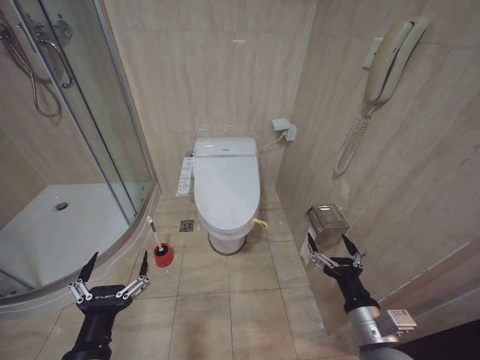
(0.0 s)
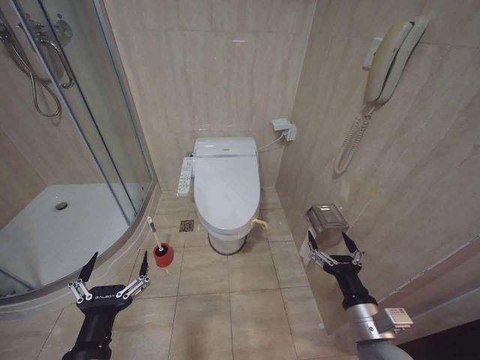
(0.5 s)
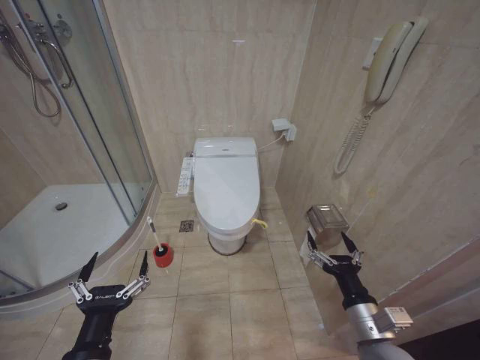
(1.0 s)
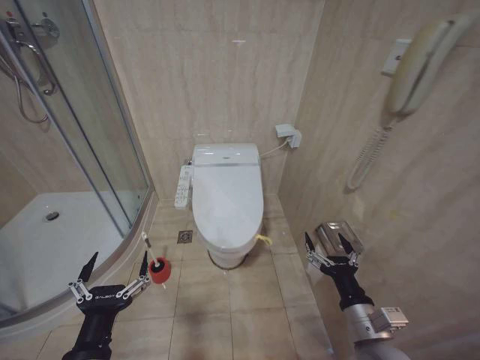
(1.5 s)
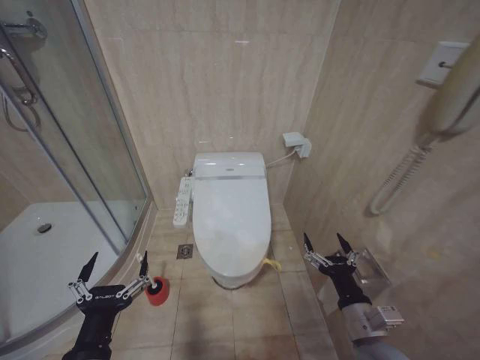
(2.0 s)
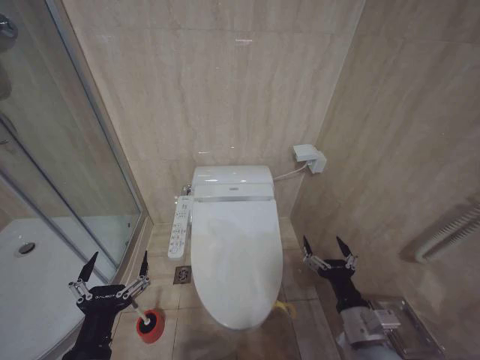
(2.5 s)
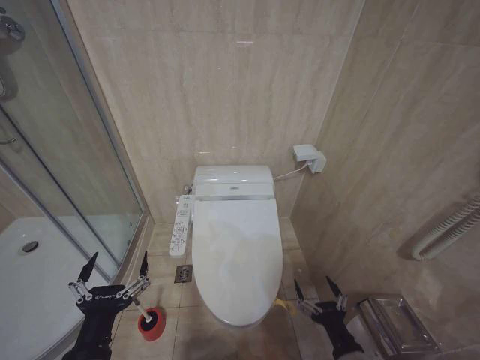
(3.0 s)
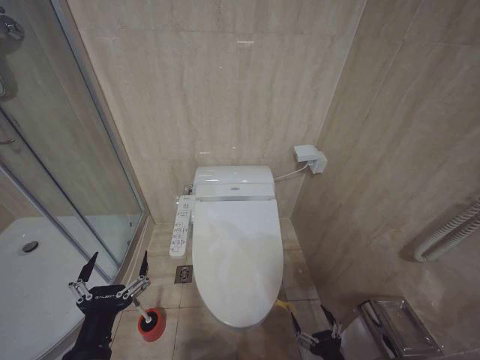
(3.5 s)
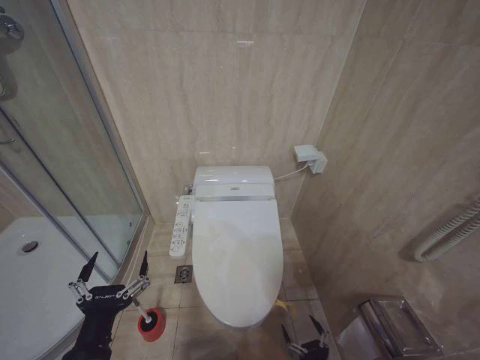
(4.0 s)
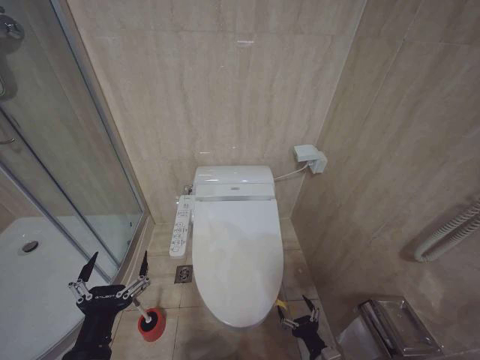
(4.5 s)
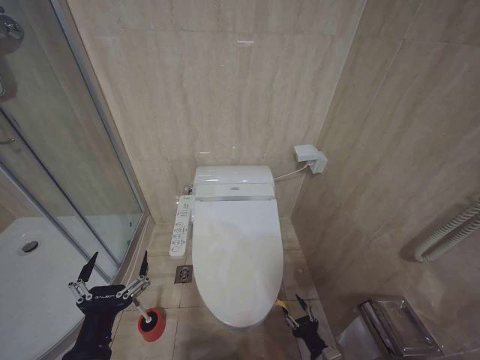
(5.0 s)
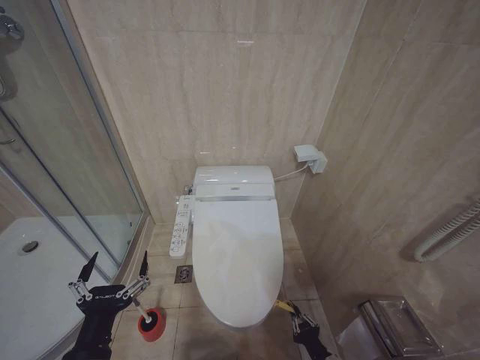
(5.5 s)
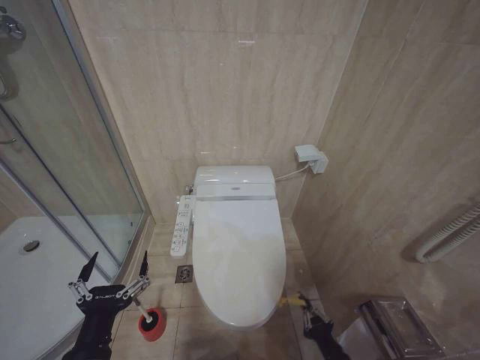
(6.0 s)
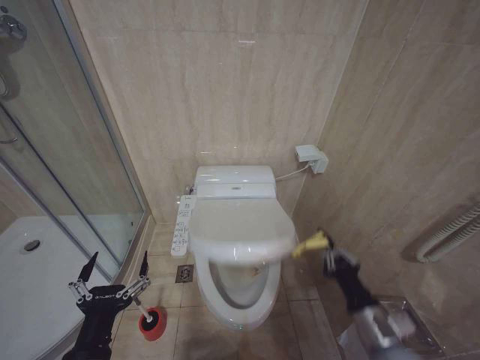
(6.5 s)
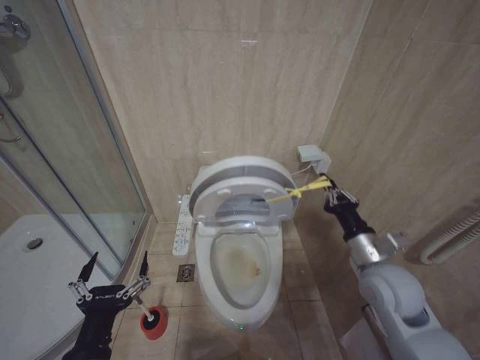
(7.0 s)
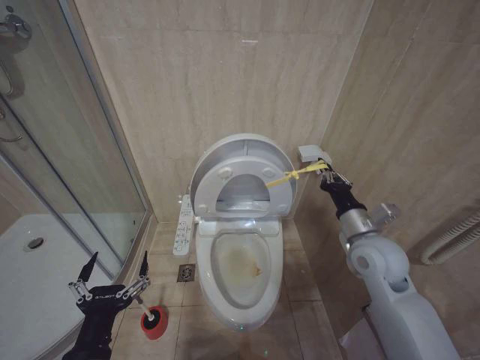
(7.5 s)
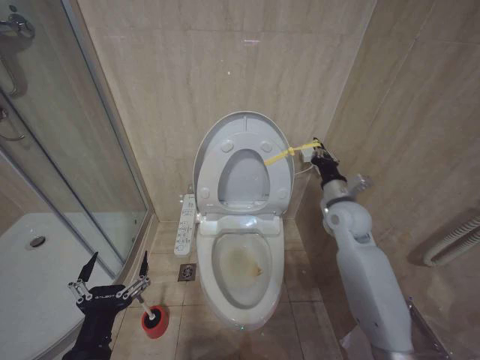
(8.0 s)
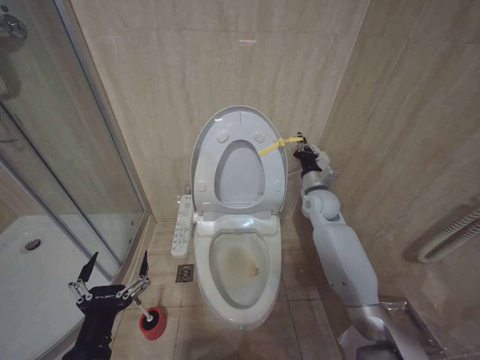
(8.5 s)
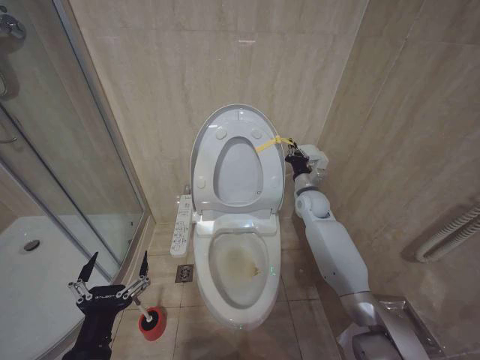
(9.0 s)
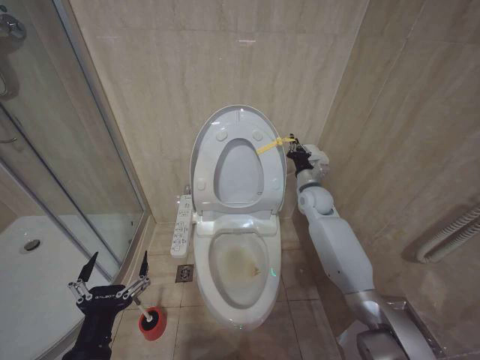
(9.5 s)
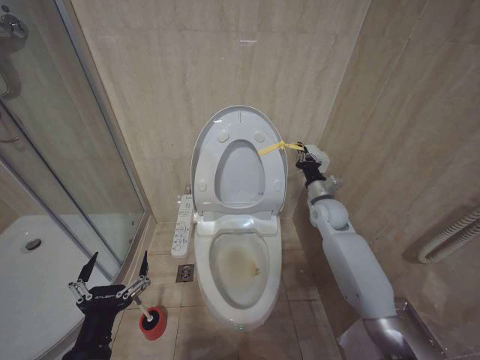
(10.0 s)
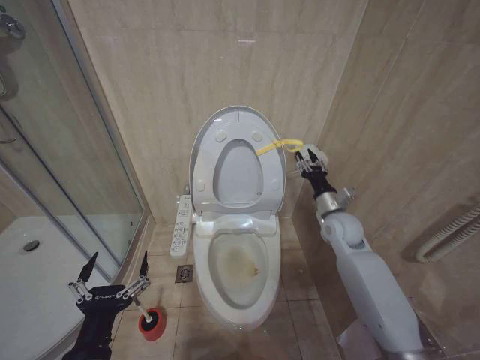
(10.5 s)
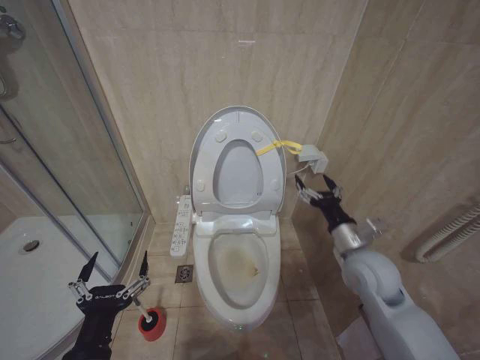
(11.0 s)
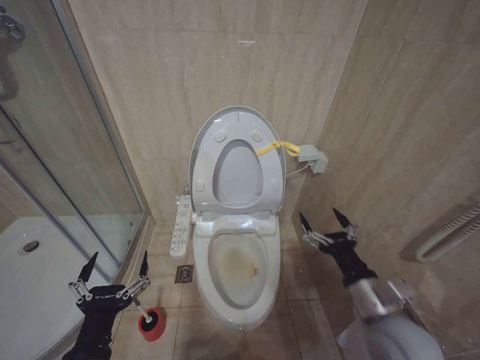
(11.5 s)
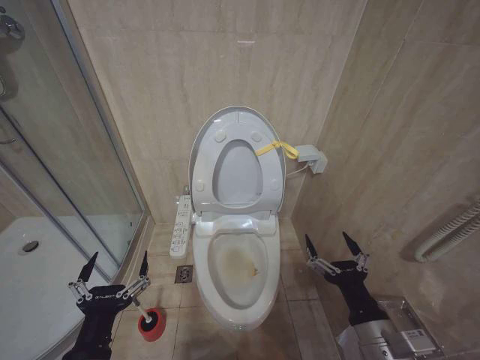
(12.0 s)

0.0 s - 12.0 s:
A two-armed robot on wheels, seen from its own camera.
Task of the whole recording: Open the toilet lid, clean the toilet bowl with a toilet brush, close the toilet lid, and flush.
2.0 s - 4.0 s: The right gripper shifts roughly 20 cm downward and backward.
4.0 s - 6.0 s: The right gripper closes its fingers.
6.0 s - 8.0 s: The right gripper goes roughly 40 cm upward and forward.
8.0 s - 10.0 s: The right gripper shifts about 10 cm forward and downward.
10.0 s - 12.0 s: The right gripper goes some 35 cm backward, and opens up.

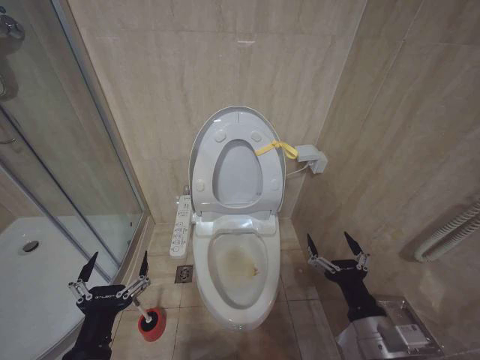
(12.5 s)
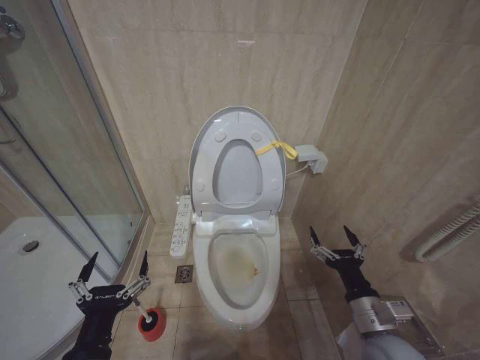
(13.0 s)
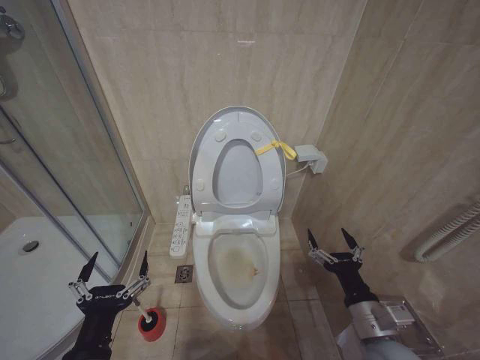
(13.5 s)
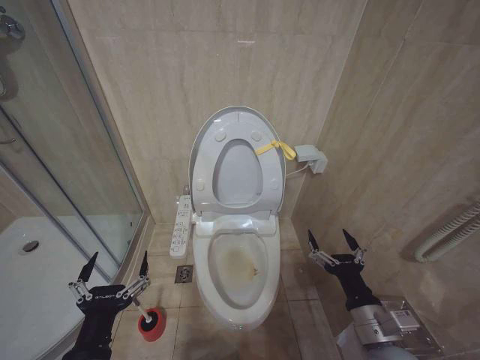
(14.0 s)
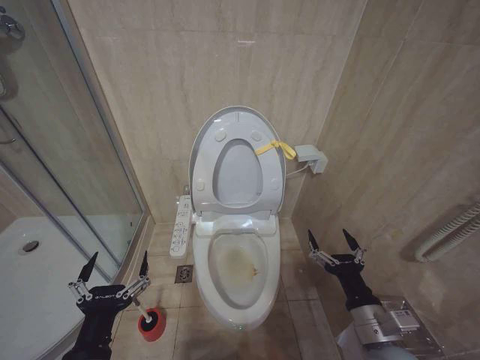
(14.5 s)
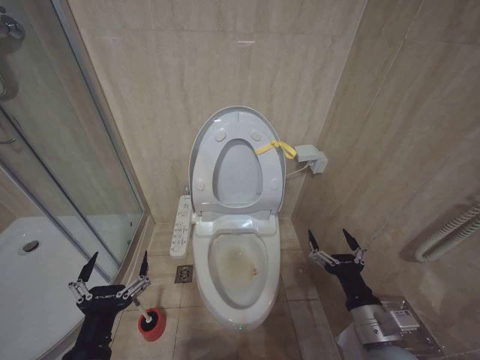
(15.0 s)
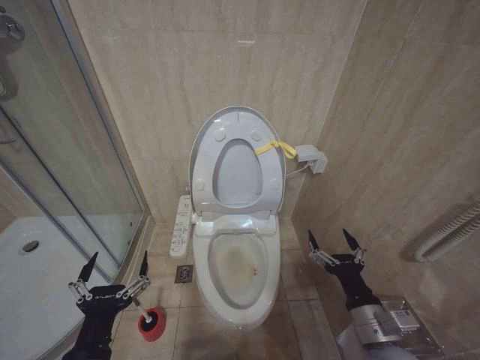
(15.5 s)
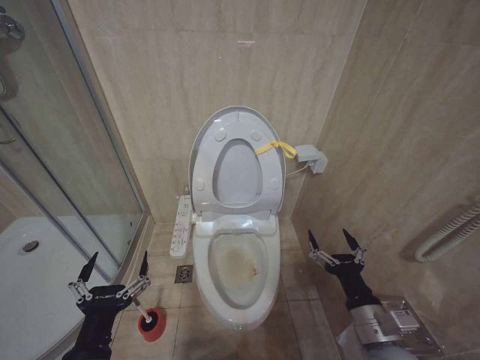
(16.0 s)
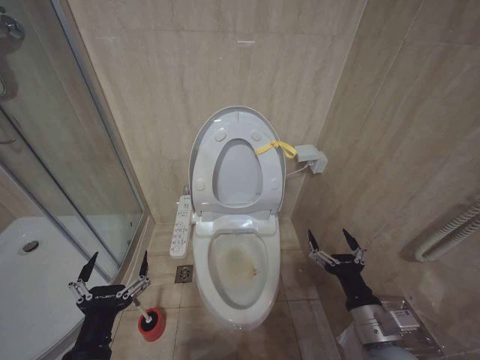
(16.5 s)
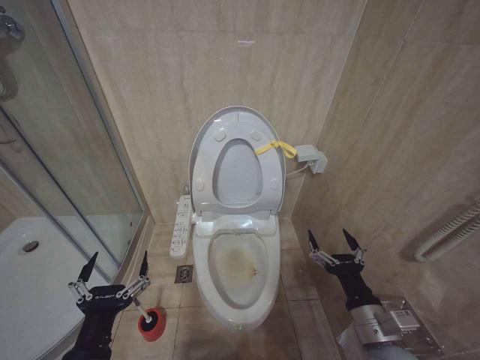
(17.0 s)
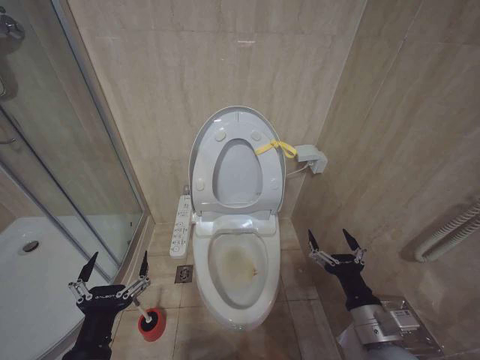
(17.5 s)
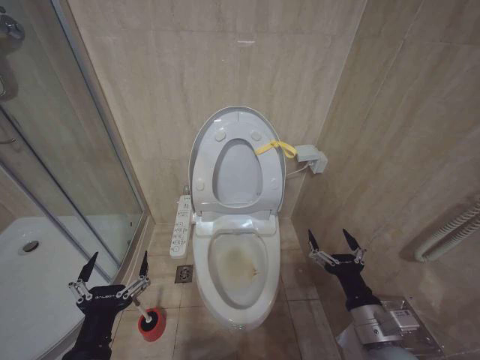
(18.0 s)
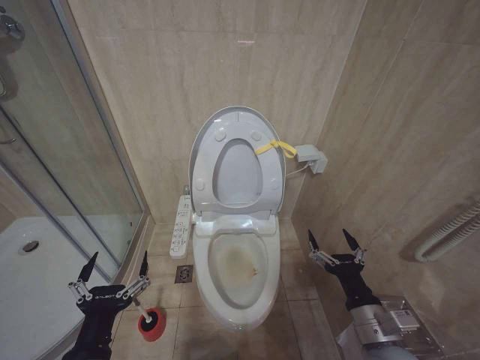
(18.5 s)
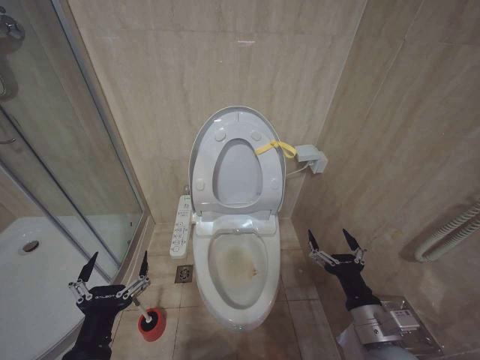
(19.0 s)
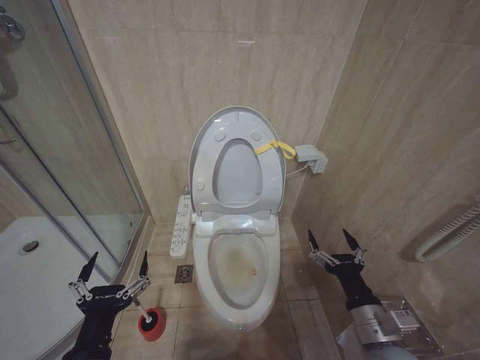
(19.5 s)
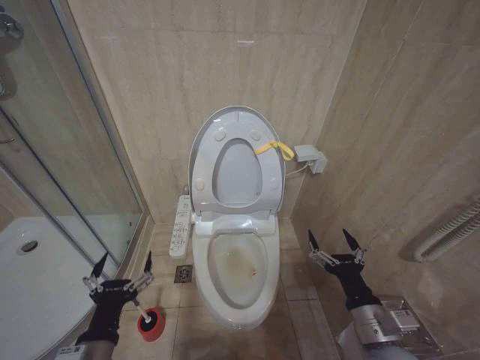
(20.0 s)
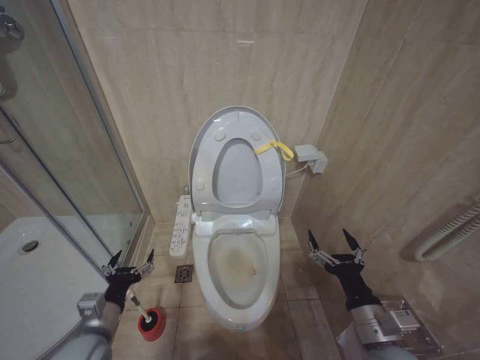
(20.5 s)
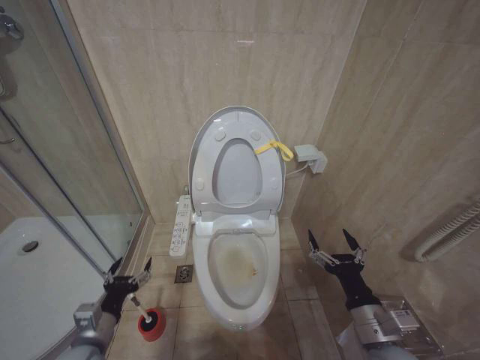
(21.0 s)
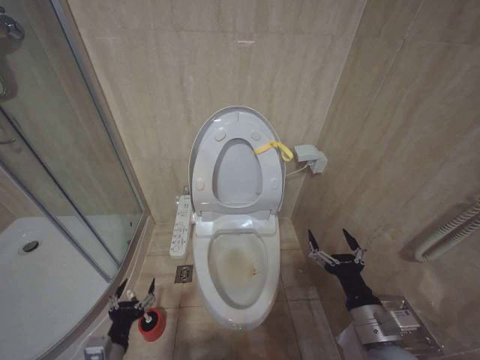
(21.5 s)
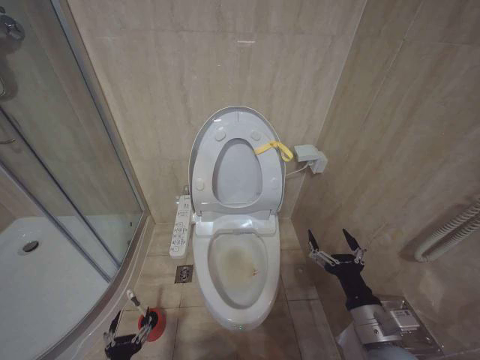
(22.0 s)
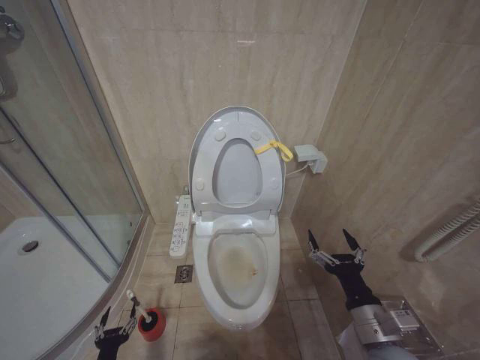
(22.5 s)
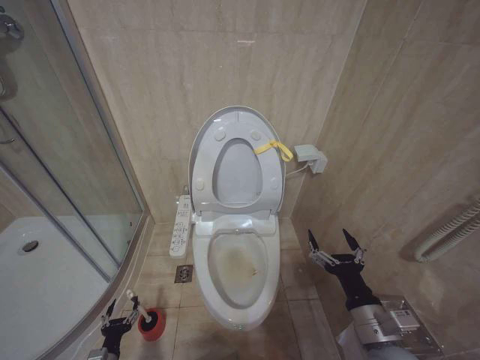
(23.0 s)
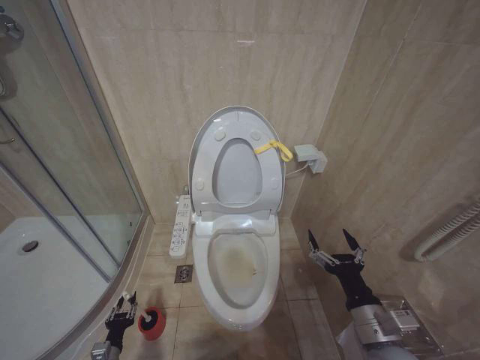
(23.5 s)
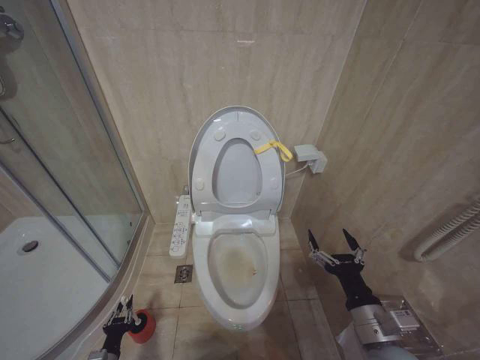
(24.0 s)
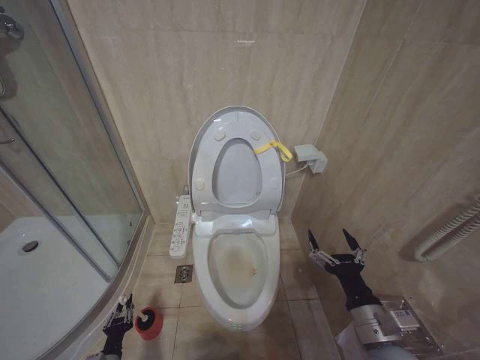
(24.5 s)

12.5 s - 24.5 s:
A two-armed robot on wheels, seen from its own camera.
Task of the whole recording: Open the toilet lid, clean the toilet bowl with a toilet brush, close the toilet lid, and flush.
12.5 s - 14.5 s: The grippers move only a little.
14.5 s - 18.5 s: Both grippers stay put.
18.5 s - 20.5 s: The left gripper travels forward, downward and to the left by about 15 cm.
20.5 s - 22.5 s: The left gripper goes approximately 20 cm downward.
22.5 s - 24.5 s: The left gripper shifts some 10 cm downward and forward, and closes up.

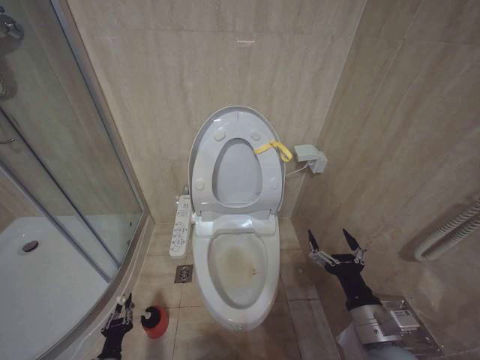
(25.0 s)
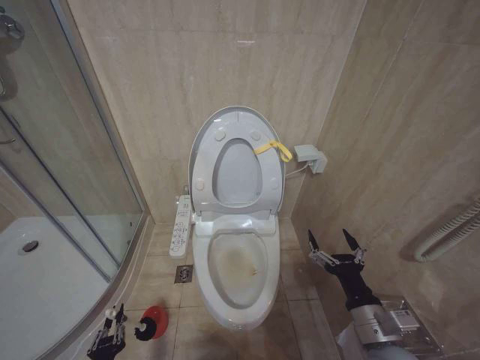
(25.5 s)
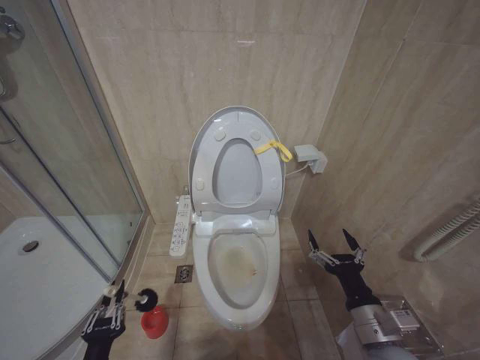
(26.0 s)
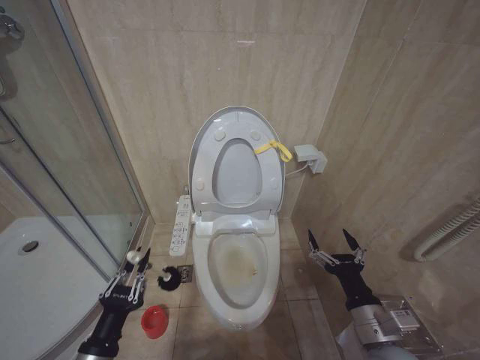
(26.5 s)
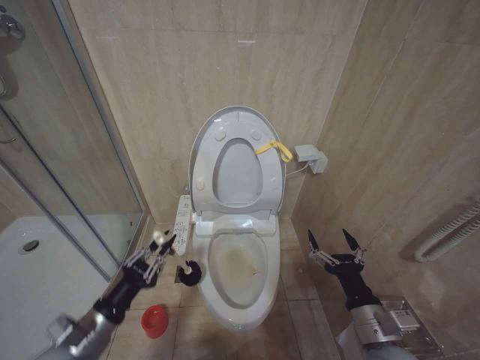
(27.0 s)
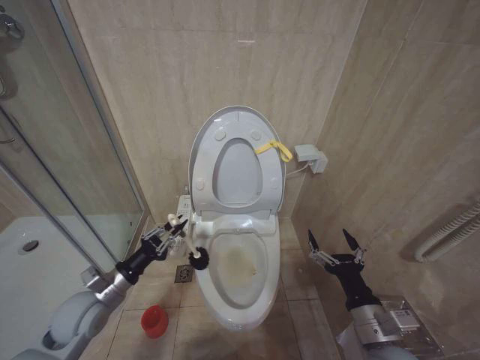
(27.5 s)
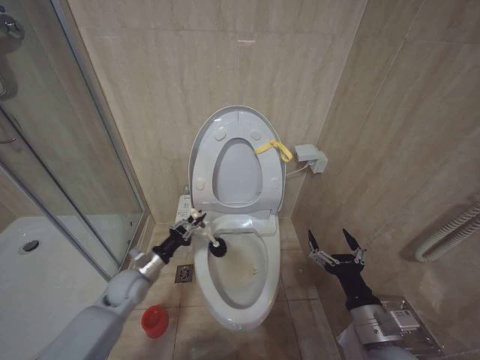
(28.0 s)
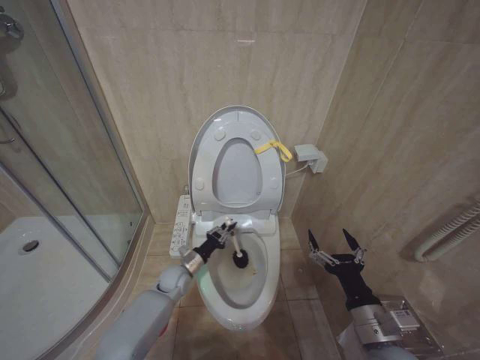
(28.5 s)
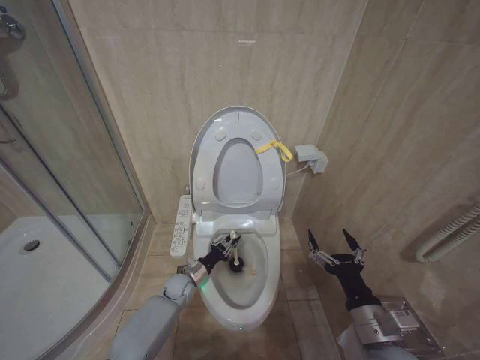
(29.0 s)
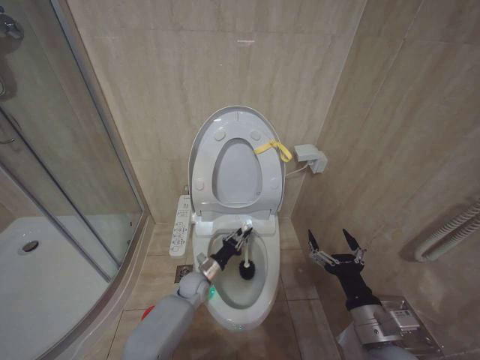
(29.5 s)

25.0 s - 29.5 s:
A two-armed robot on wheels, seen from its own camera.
Task of the whole recording: Open the toilet lid, clean the toilet bowl with a toilet brush, close the toilet lid, and flush.
25.0 s - 27.0 s: The left gripper goes roughly 30 cm upward.
27.0 s - 29.5 s: The left gripper is displaced forward, downward and to the right by roughly 35 cm.
